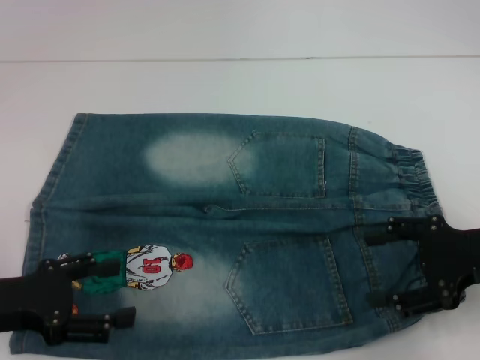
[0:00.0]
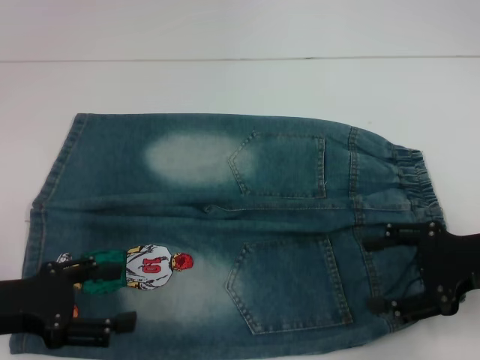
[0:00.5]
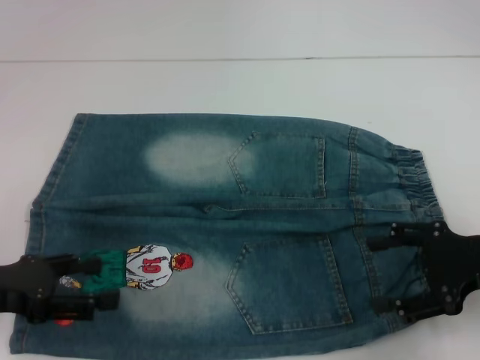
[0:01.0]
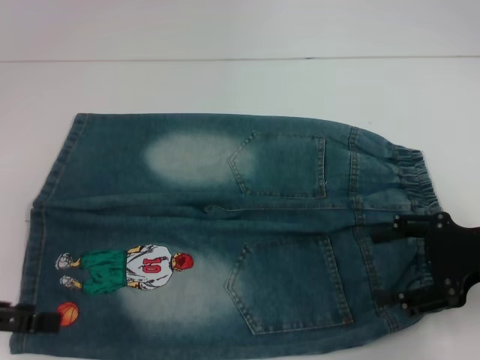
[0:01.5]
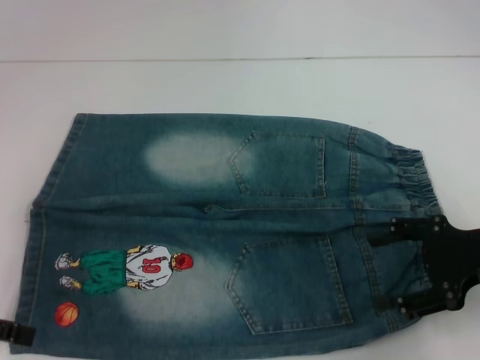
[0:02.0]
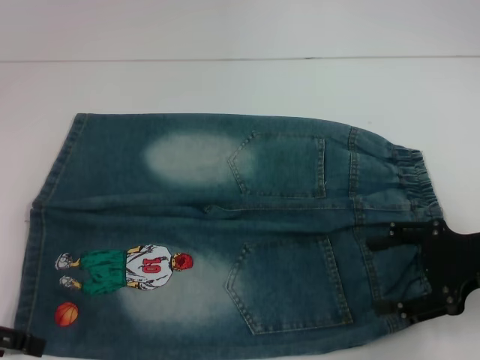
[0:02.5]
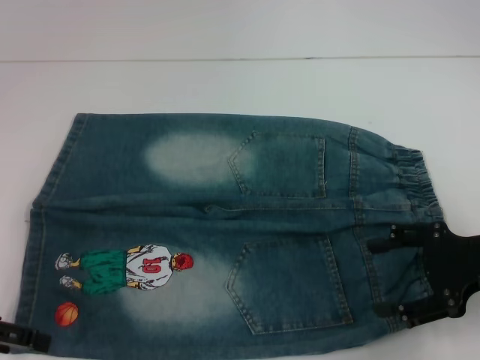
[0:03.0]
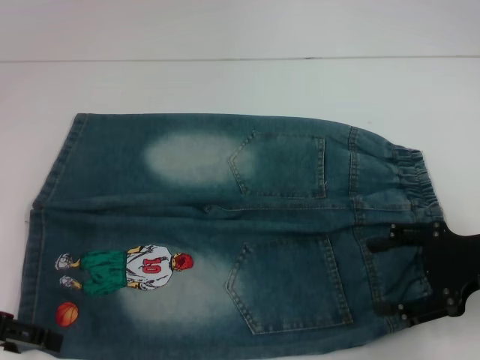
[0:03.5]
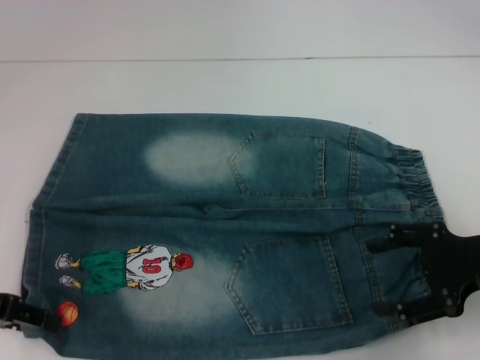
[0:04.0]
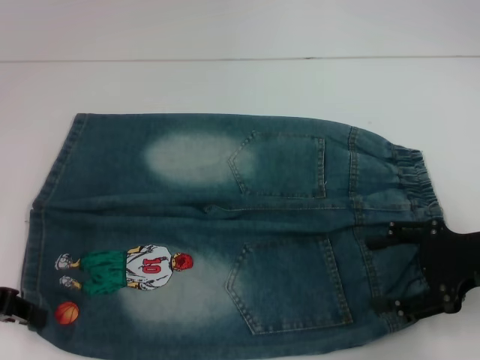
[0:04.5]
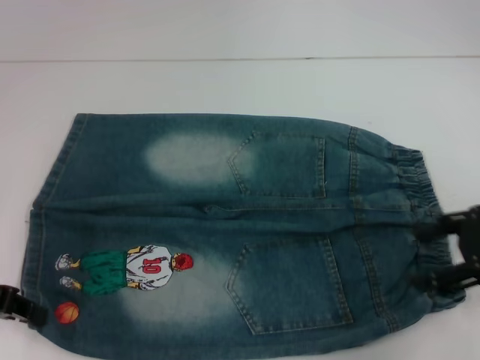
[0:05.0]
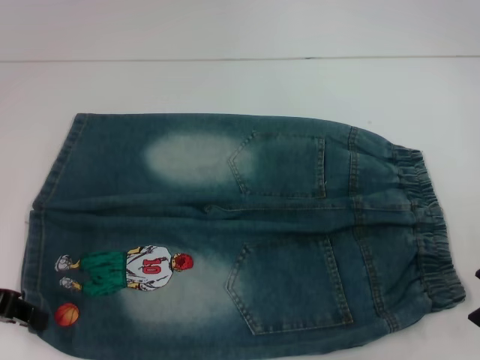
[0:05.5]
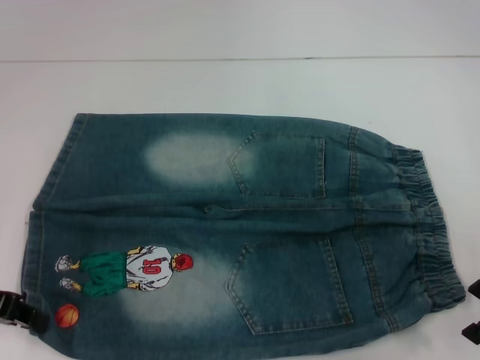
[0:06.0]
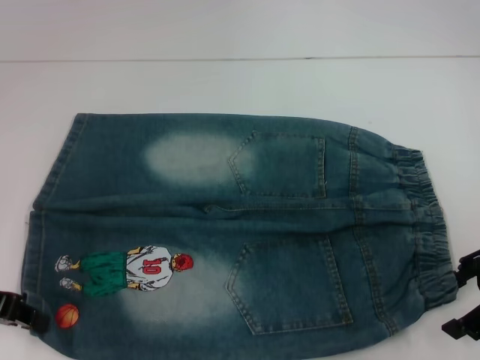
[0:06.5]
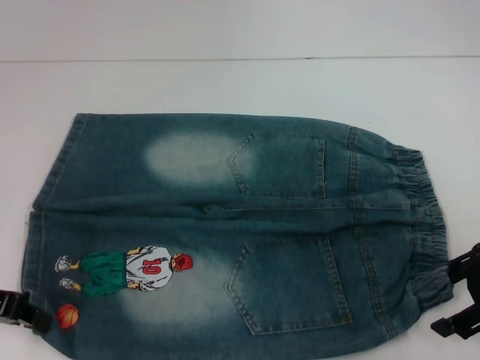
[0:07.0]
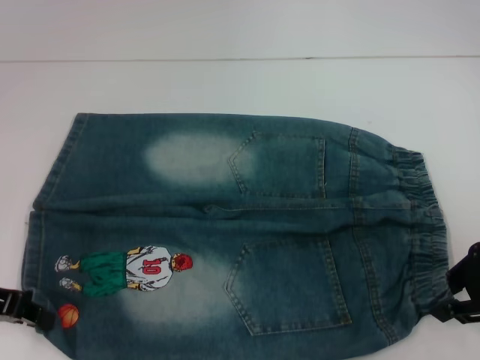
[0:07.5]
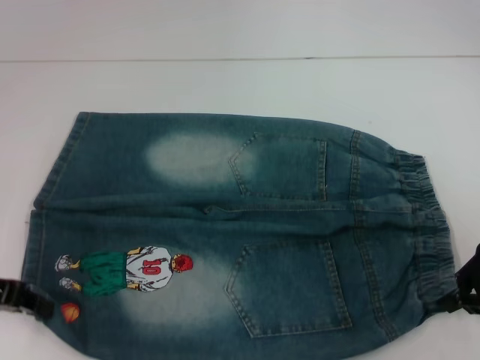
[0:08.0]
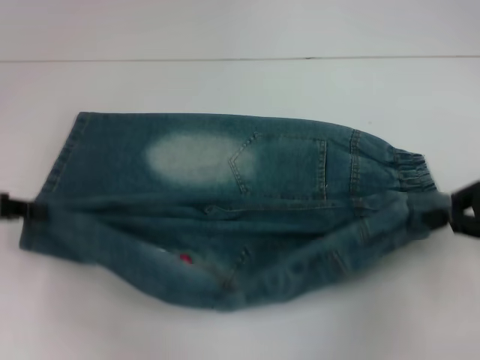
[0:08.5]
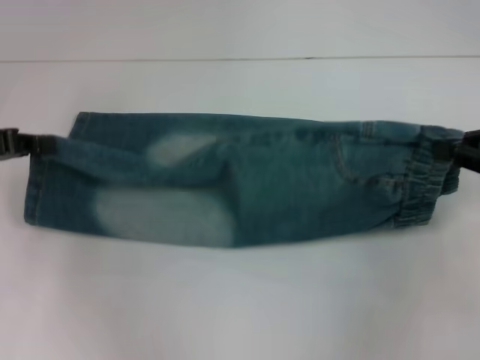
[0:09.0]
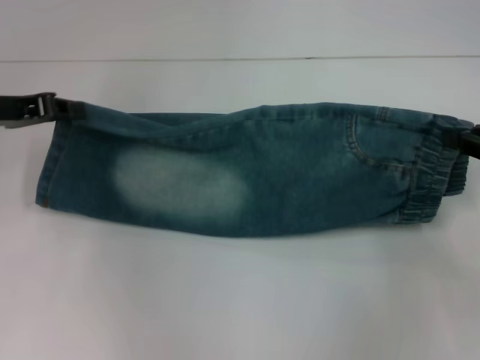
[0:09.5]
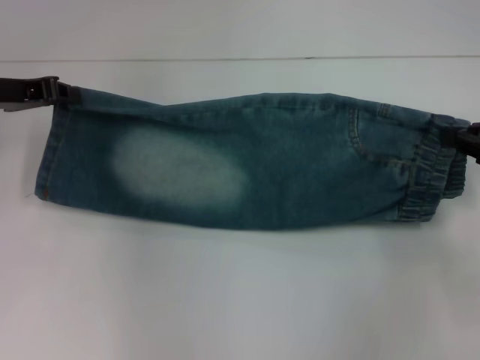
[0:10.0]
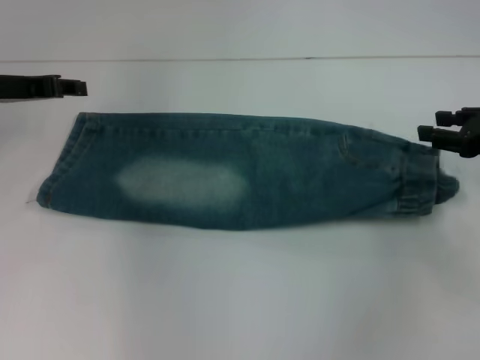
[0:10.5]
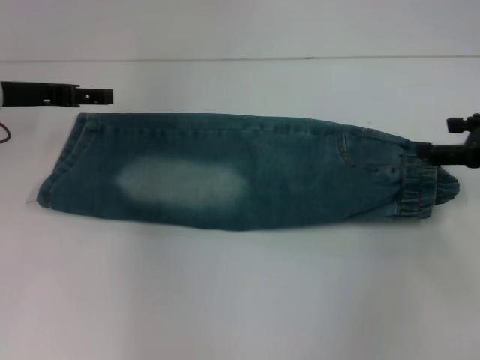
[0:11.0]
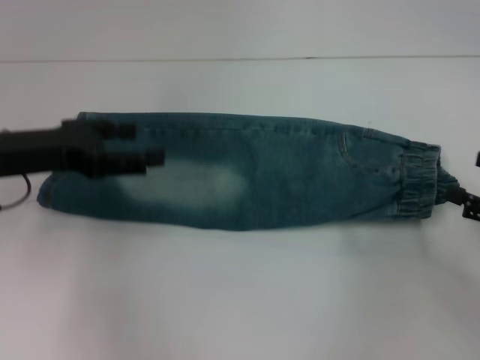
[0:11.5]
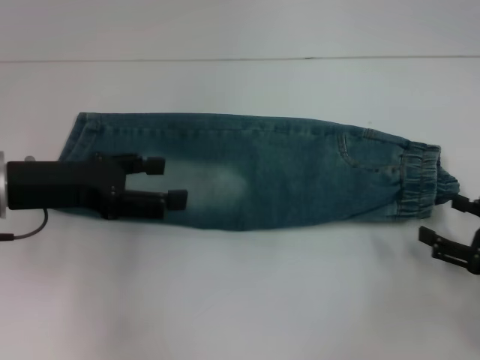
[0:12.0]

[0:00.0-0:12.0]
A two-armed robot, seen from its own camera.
Step, 0:00.0 to 0:05.0: Grab the lower left pant leg with your left hand.
Step, 0:05.5 to 0:07.5: Hold the lower right waistband with your right hand.
Step, 0:08.0 to 0:10.5: Fold upward with your right hand.
0:00.0 to 0:02.0: The left gripper travels to the left and upward by some 10 cm.
0:02.0 to 0:04.0: The grippers move only a little.
0:04.0 to 0:06.0: The left gripper closes up; the right gripper changes place by approximately 5 cm.
0:06.0 to 0:08.0: The right gripper closes.
0:08.0 to 0:10.0: The left gripper goes approximately 10 cm forward; the right gripper moves approximately 5 cm.
0:10.0 to 0:12.0: The left gripper is displaced backward by roughly 10 cm, and opens; the right gripper travels backward and downward by roughly 15 cm, and opens.

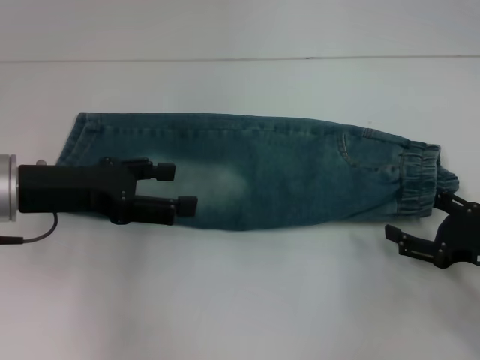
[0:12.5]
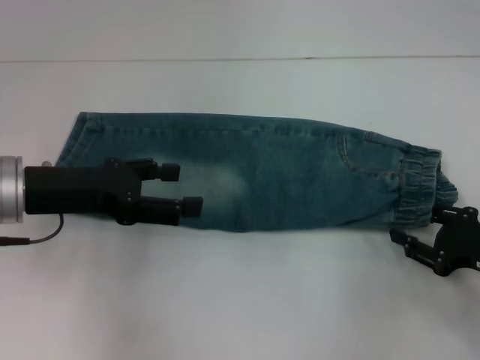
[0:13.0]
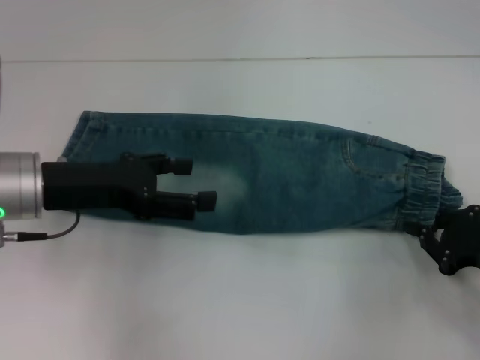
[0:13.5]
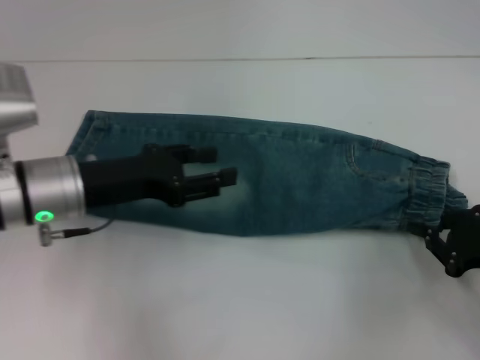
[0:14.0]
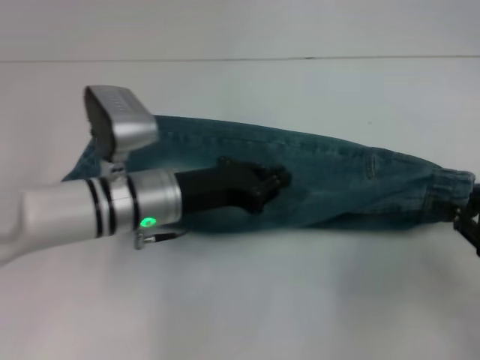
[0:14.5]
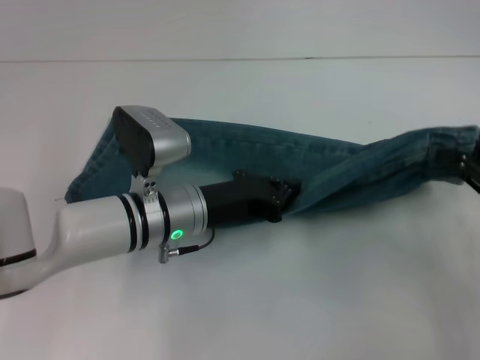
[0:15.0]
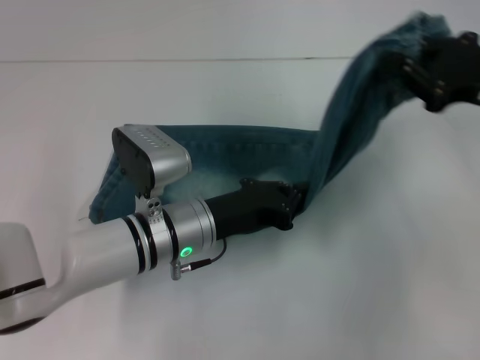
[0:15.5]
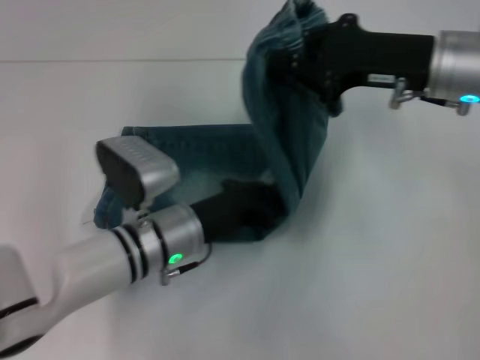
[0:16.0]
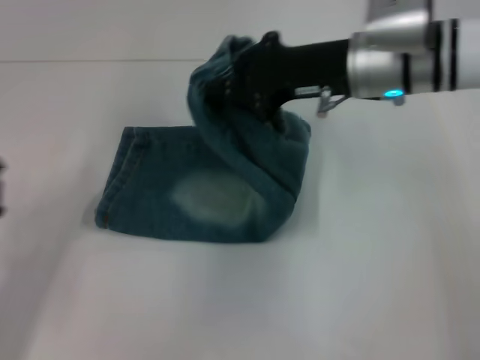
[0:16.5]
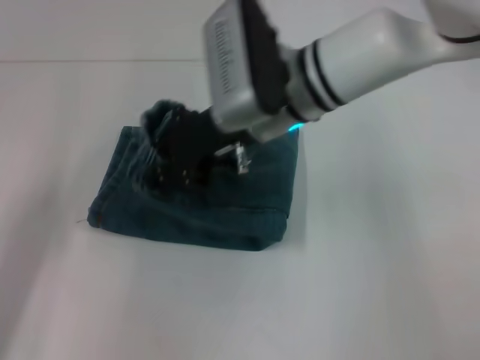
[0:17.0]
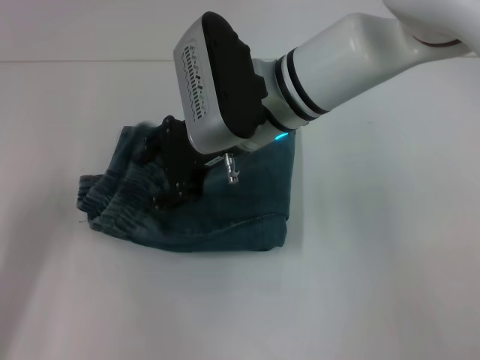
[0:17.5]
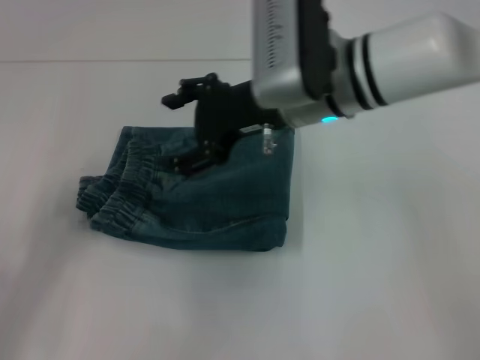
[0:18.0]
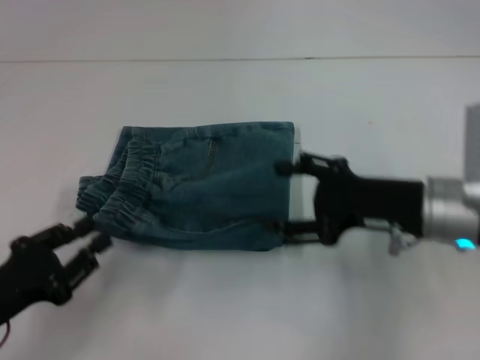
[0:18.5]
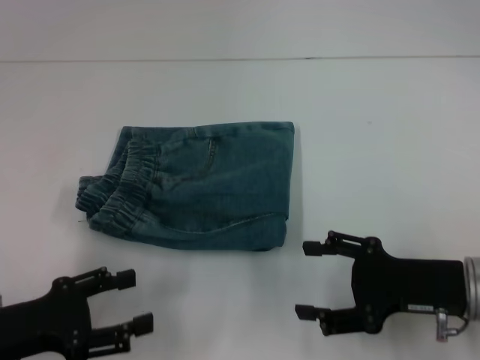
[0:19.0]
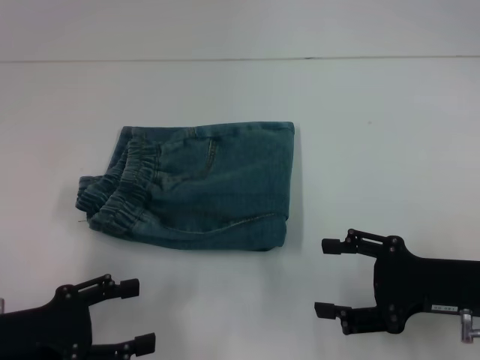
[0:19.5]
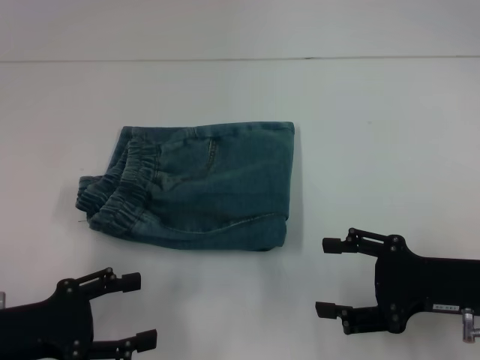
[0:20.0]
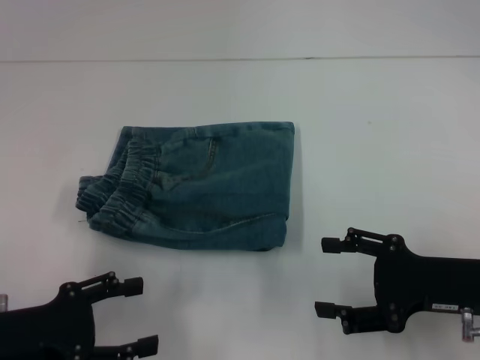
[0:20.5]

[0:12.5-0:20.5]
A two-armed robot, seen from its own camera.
Step, 0:14.5 to 0:15.5: Press the middle of the pants with your left hand.
Step, 0:16.5 to 0:17.0: Fold to the left with your right hand.
0:12.5 to 0:14.5: The right gripper changes place by roughly 5 cm, and closes up. Meanwhile the left gripper moves to the right and downward, about 15 cm, and closes up.
0:14.5 to 0:16.5: The right gripper shifts some 30 cm to the left, forward and upward; the left gripper is displaced to the left and backward by about 20 cm.
0:16.5 to 0:18.5: The right gripper is displaced backward and downward by some 15 cm, moves roughly 10 cm to the left and comes back, and opens up.
0:18.5 to 0:20.5: The left gripper opens up. Meanwhile the right gripper travels backward and to the right by about 10 cm.
